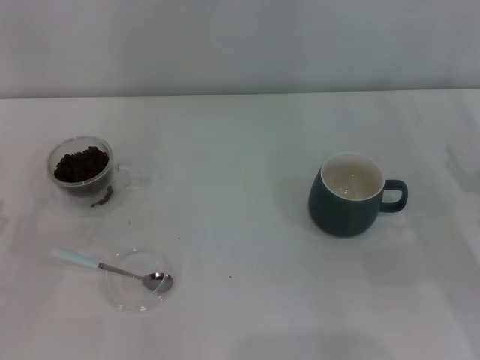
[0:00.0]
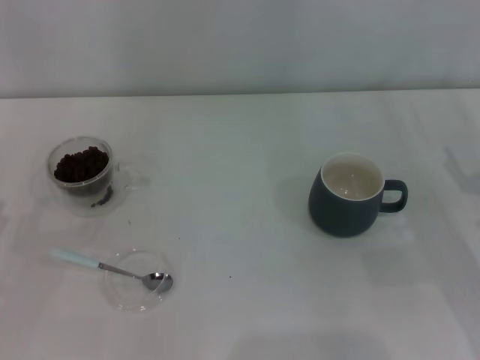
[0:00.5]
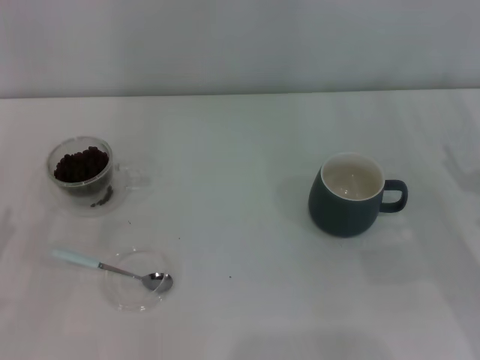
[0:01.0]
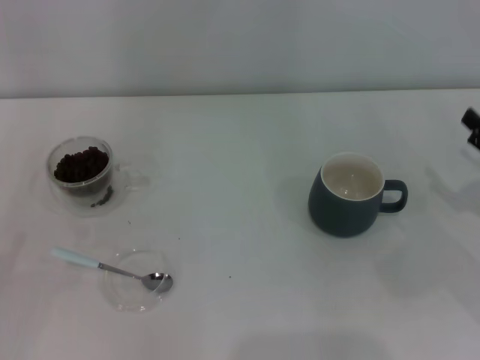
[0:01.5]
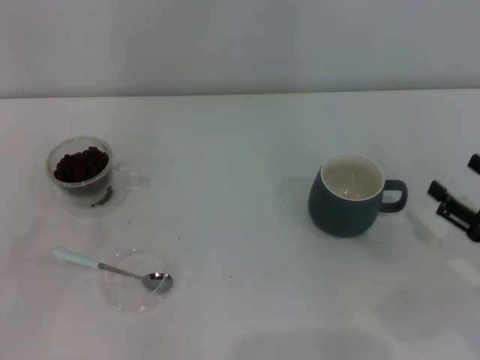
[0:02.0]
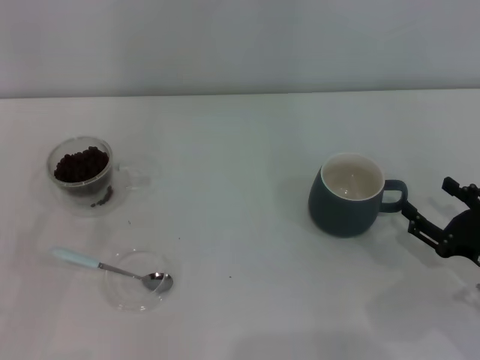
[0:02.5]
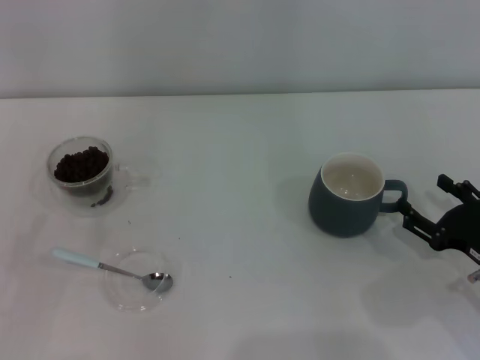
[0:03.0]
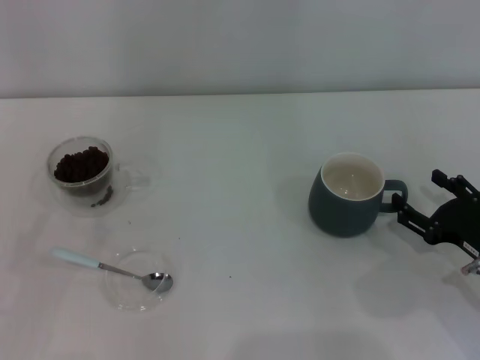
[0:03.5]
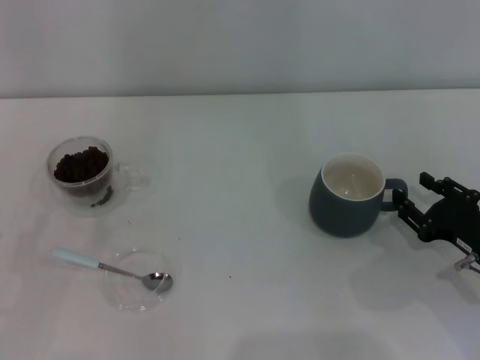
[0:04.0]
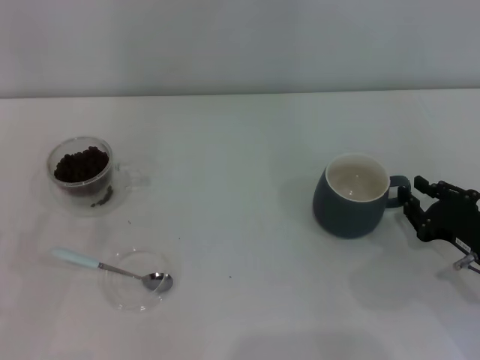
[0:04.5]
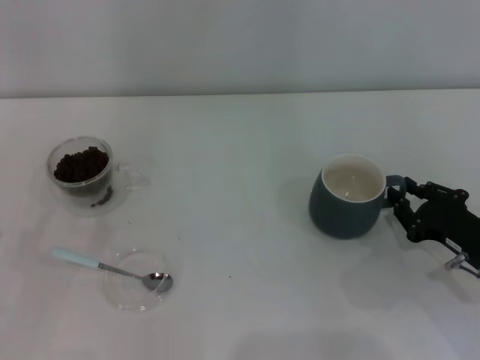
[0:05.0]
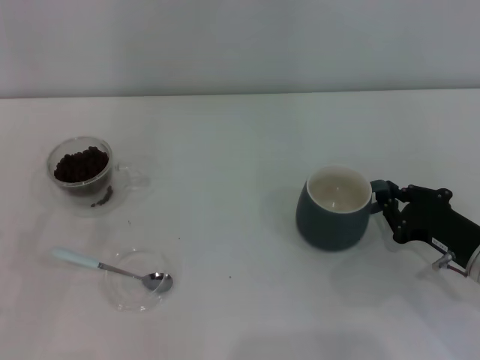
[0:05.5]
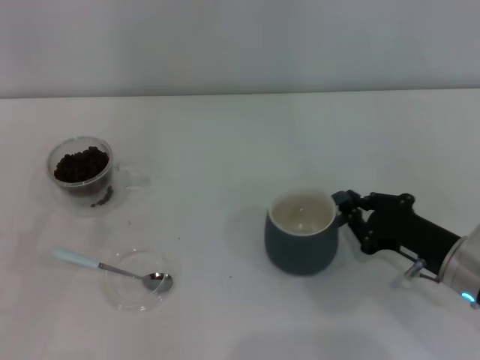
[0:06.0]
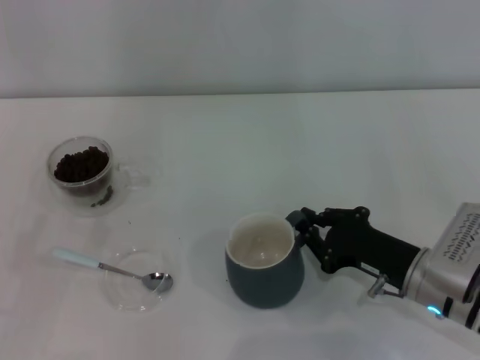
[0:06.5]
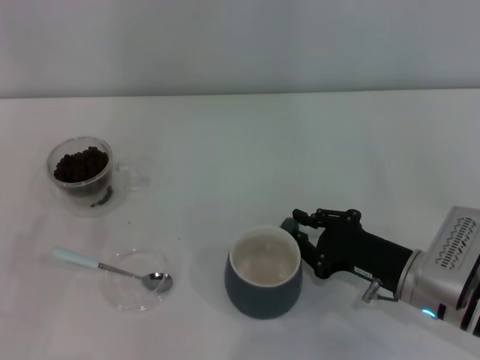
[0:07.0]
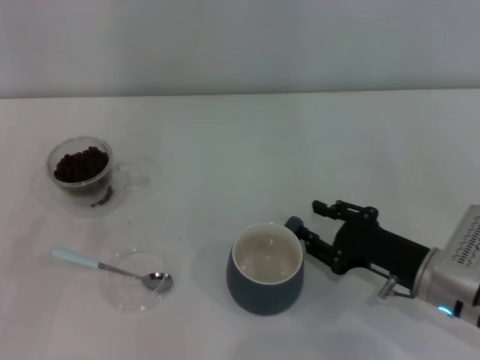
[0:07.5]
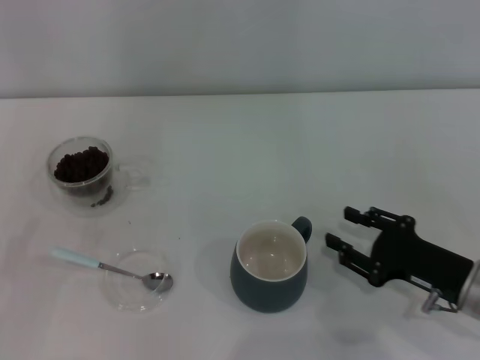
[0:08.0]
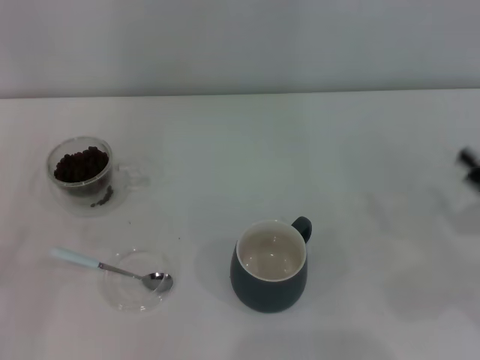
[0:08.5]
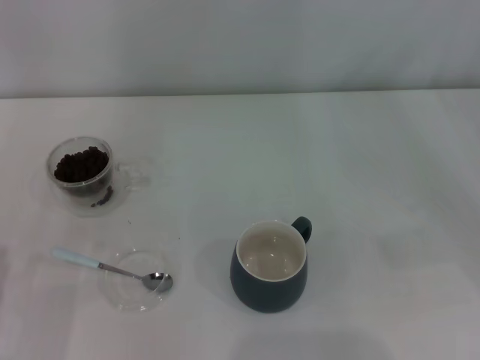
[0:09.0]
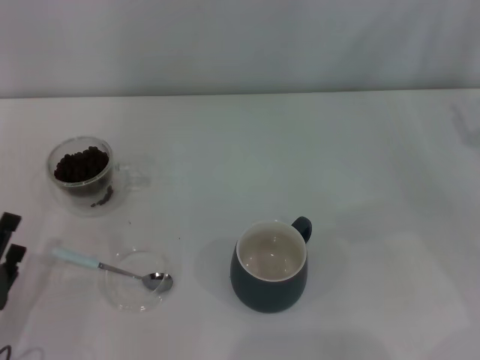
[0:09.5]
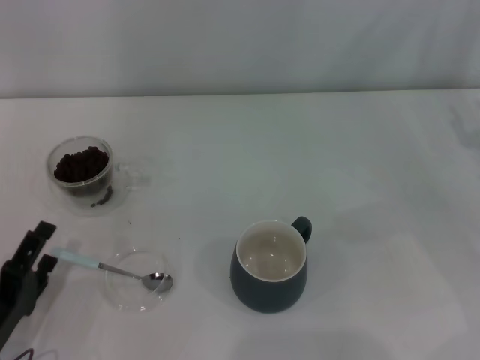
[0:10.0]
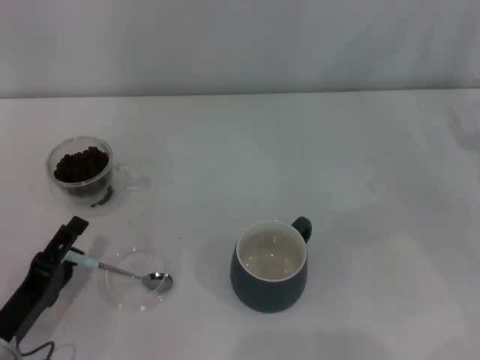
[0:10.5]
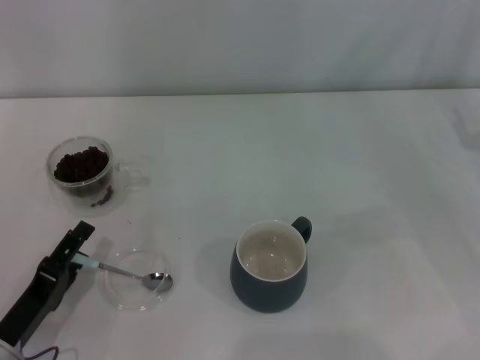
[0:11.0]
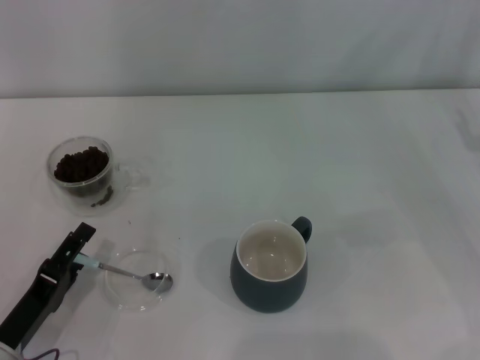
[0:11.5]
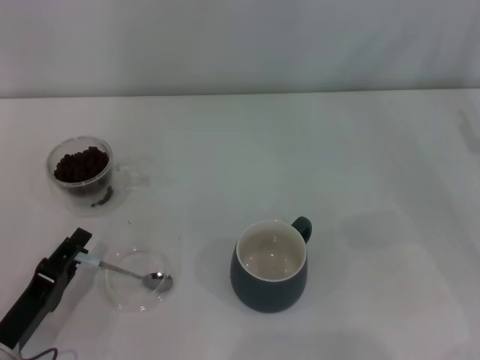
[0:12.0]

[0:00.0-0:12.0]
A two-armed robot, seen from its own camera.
Task of the whole recording: Use a blue spoon to take out the coffee beans from the glass and pour them into the gray cup.
Step, 0:00.0 to 0:08.0: Move the cup to the center of view with the left gripper.
0:00.0 to 0:02.0: The right gripper shifts some 5 cm backward.
0:02.0 to 0:04.0: The right gripper moves some 5 cm.
0:04.0 to 0:06.0: The right gripper closes up.
0:06.0 to 0:08.0: The right gripper opens up.
0:08.0 to 0:10.0: The left gripper moves to the right and downward, approximately 10 cm; the right gripper travels to the right, upward and forward by approximately 15 cm.
0:10.0 to 0:12.0: The left gripper closes its fingers.

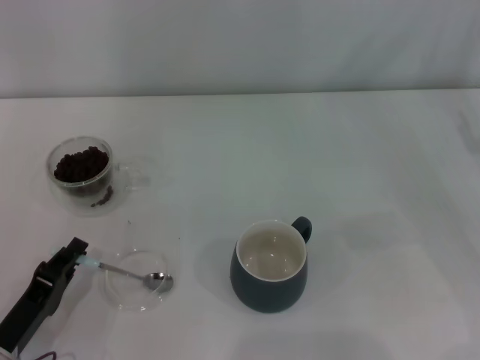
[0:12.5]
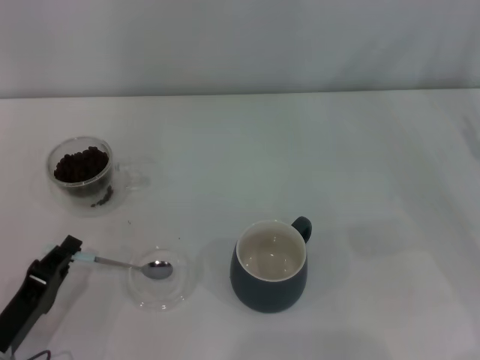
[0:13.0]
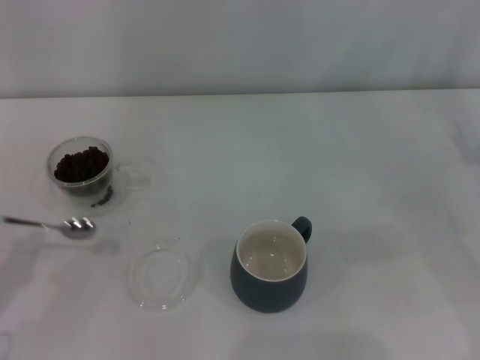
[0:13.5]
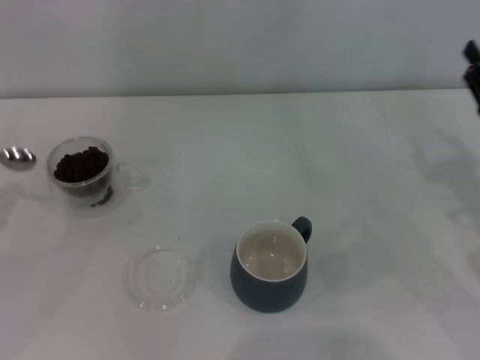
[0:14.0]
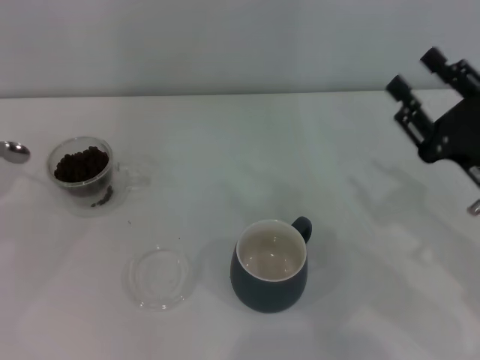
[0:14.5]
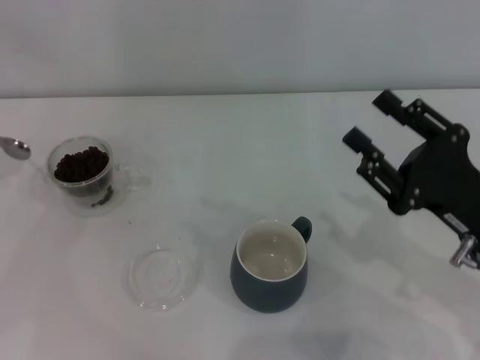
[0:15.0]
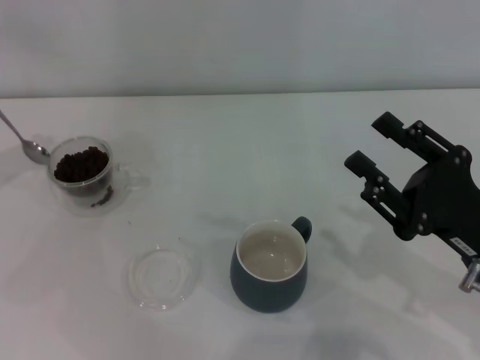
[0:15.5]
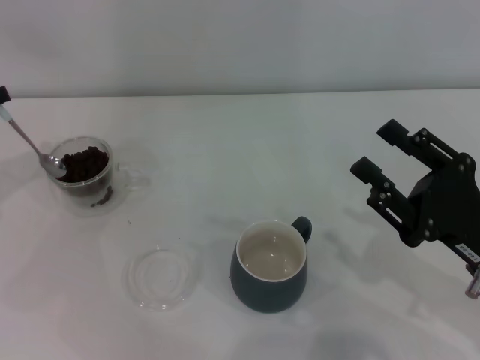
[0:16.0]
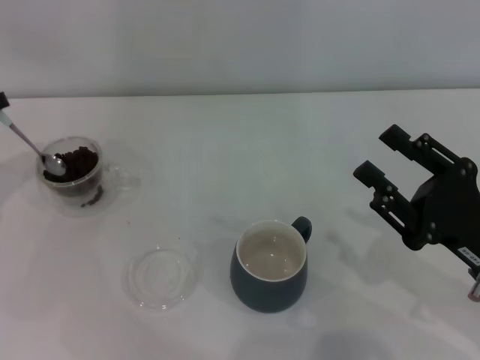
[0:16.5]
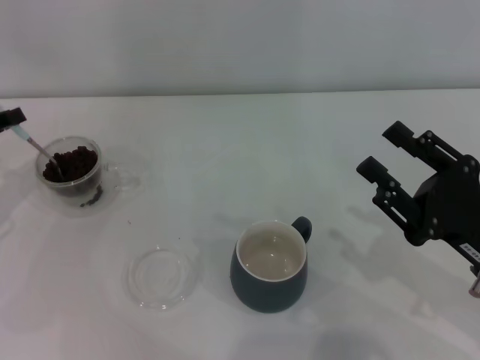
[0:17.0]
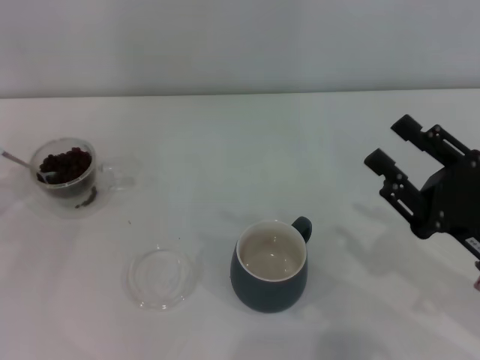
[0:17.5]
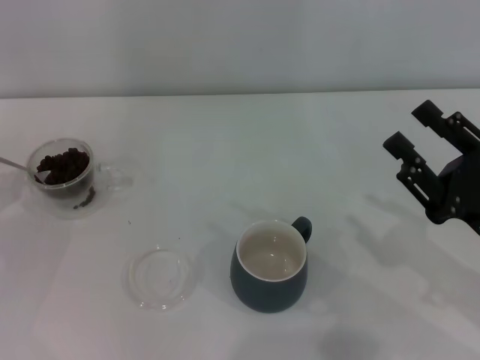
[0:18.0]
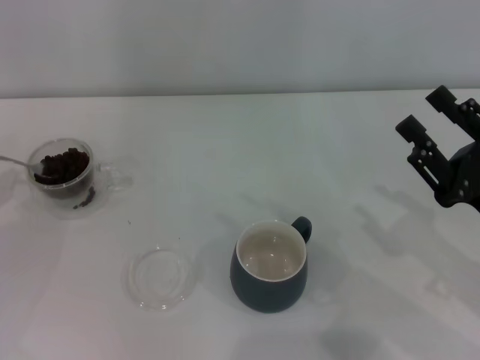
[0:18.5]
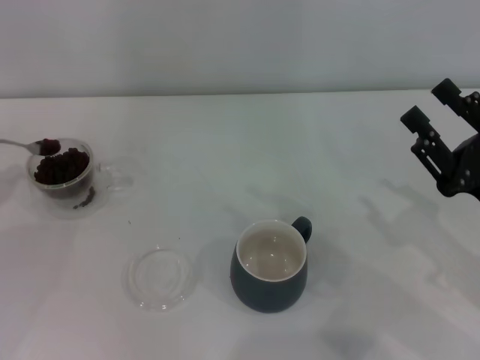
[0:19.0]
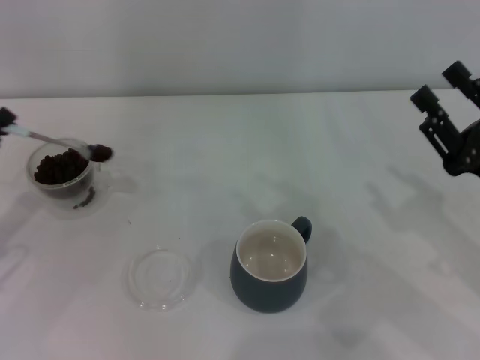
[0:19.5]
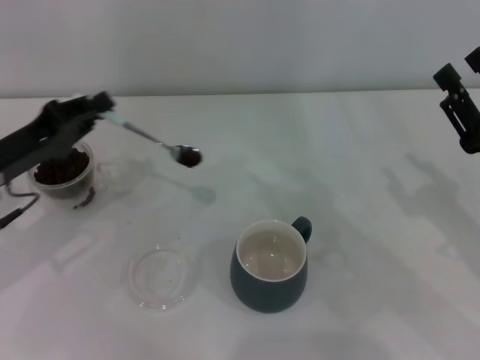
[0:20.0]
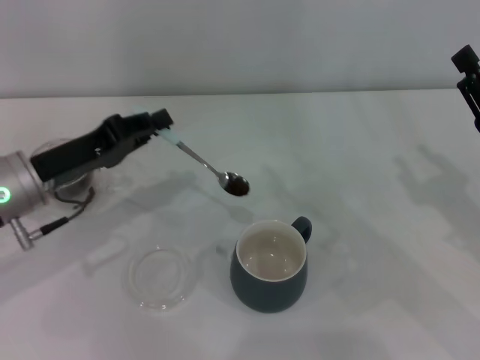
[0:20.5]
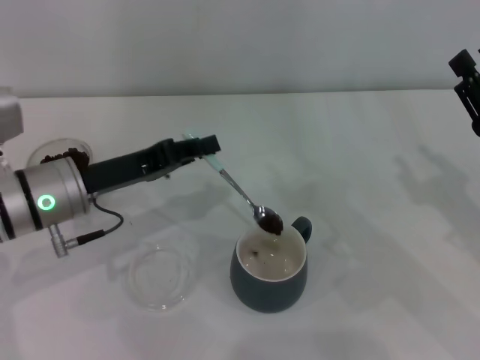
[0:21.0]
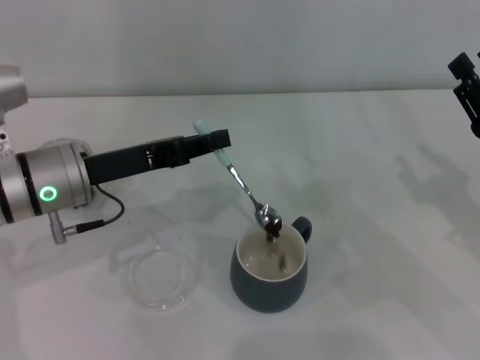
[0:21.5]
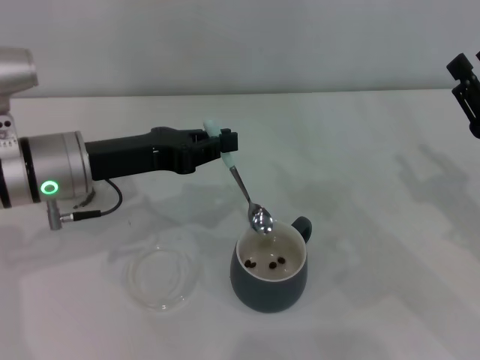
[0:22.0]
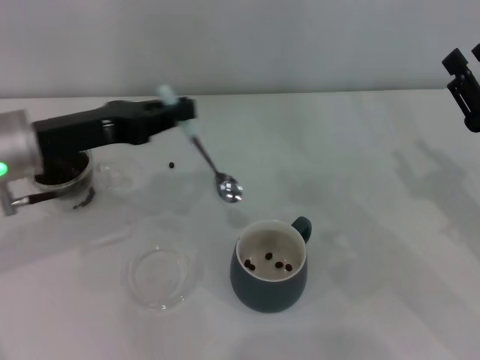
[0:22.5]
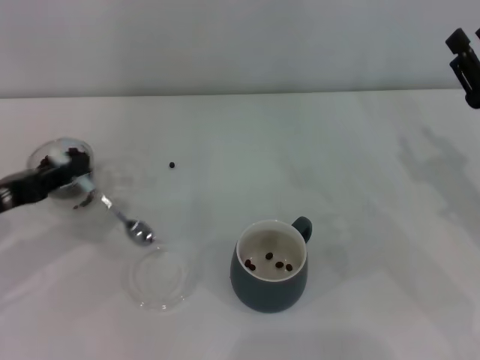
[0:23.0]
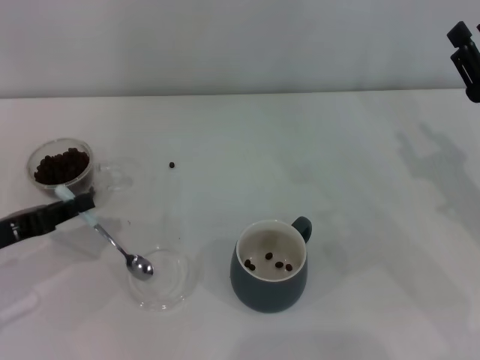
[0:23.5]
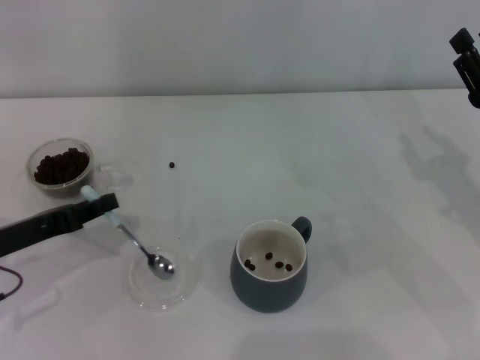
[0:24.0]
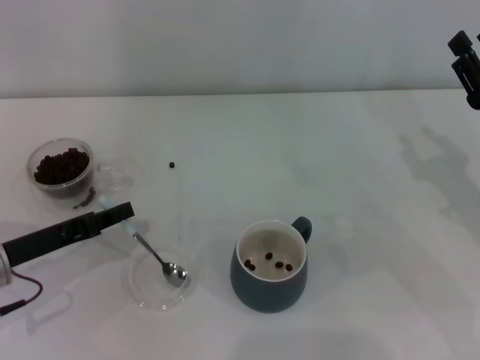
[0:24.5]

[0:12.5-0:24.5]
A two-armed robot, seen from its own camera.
Task of the whole recording: Use a blue spoon to take out the coffee beans from the glass and pour them into the gray cup.
Step, 0:13.5 to 0:21.5: Scoop a spoonful of beans into the cup with the right gripper.
0:12.5 to 0:14.5: The right gripper heads to the left and backward, covering some 10 cm; the left gripper goes approximately 25 cm to the left, upward and forward.
0:14.5 to 0:16.5: The left gripper goes roughly 10 cm forward and to the right. Meanwhile the right gripper moves approximately 5 cm.
0:16.5 to 0:18.5: The left gripper goes about 10 cm backward and downward.
0:18.5 to 0:20.5: The left gripper travels to the right by roughly 15 cm.
0:20.5 to 0:22.5: The left gripper travels upward by roughly 5 cm.
0:22.5 to 0:24.5: The left gripper travels downward, backward and to the left by approximately 15 cm.

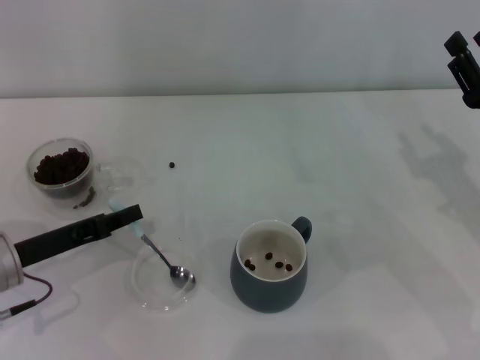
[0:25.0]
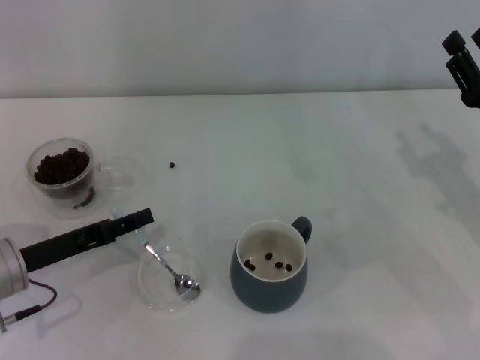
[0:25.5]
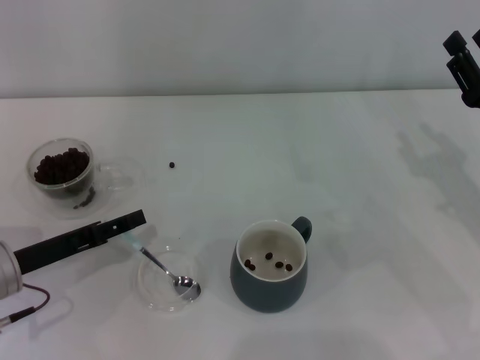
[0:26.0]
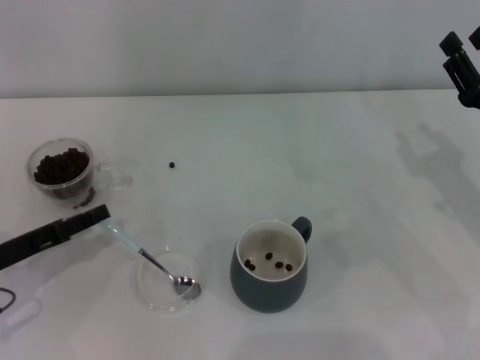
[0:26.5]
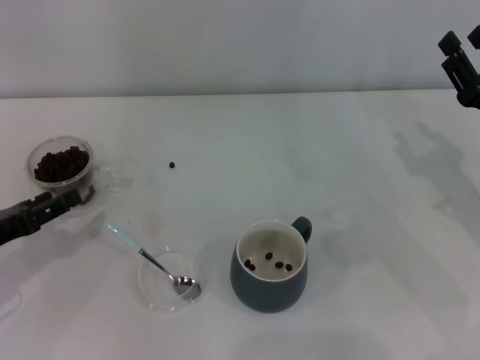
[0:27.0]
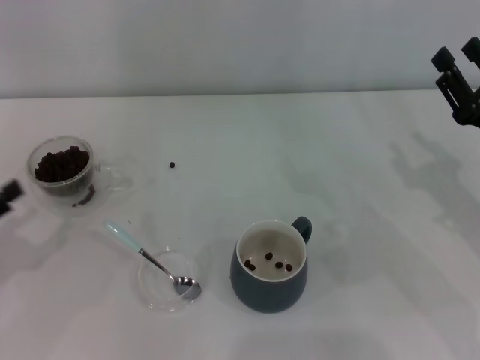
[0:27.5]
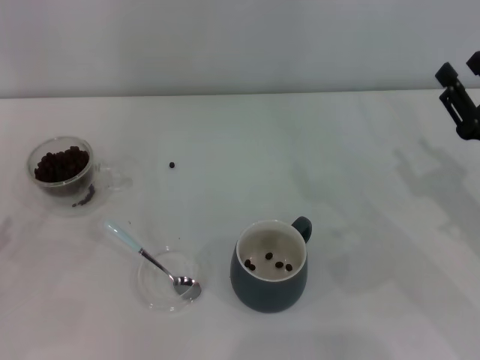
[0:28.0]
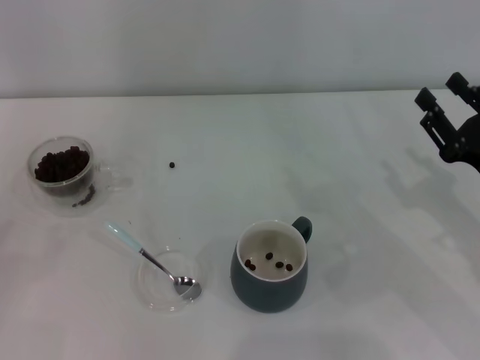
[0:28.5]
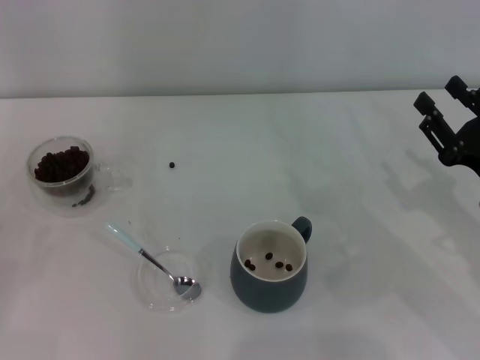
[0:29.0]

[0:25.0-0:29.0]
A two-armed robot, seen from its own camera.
Task of the whole recording: Use a blue spoon to take out the coffee beans from the glass and pour them into the gray cup.
0:25.0 to 0:27.0: The left gripper shifts approximately 5 cm to the left, and opens.
0:27.0 to 0:29.0: The left gripper goes roughly 10 cm backward and to the left.
